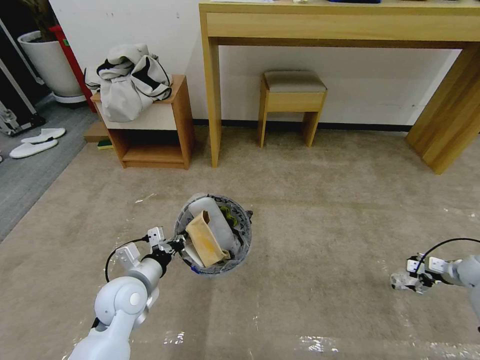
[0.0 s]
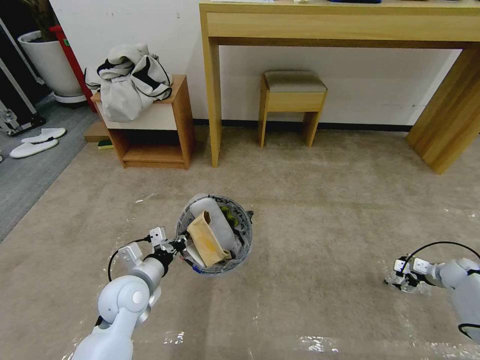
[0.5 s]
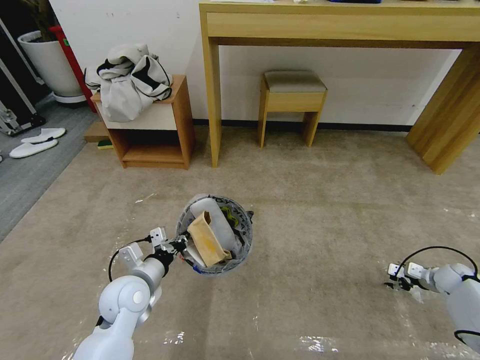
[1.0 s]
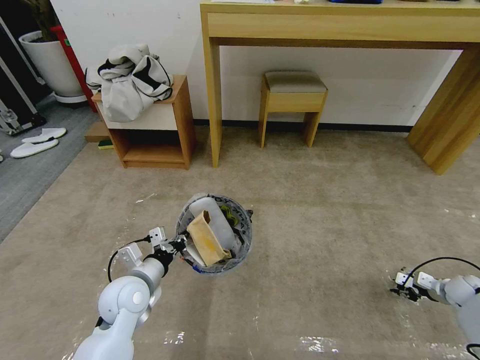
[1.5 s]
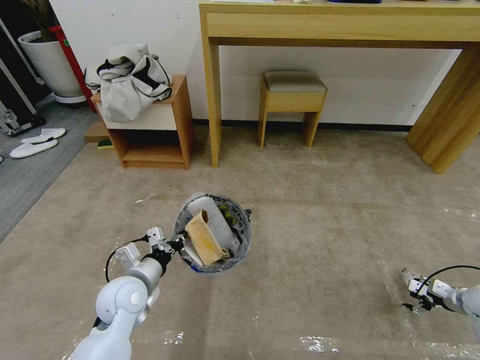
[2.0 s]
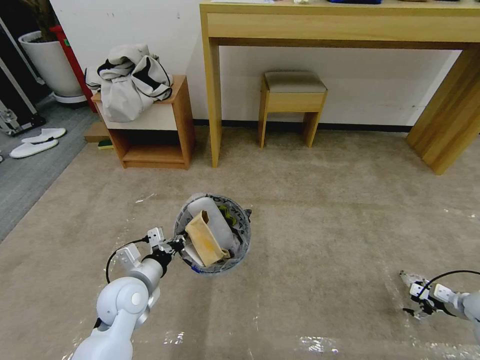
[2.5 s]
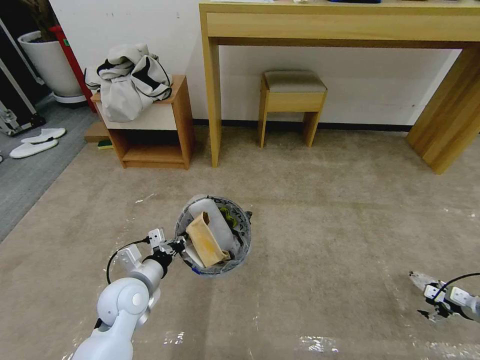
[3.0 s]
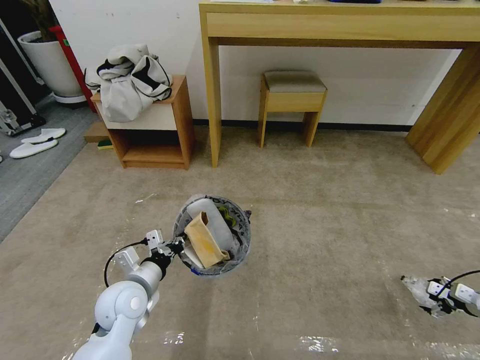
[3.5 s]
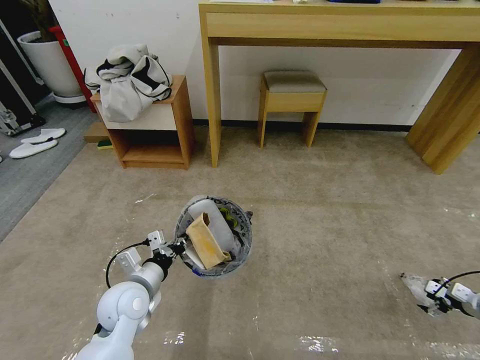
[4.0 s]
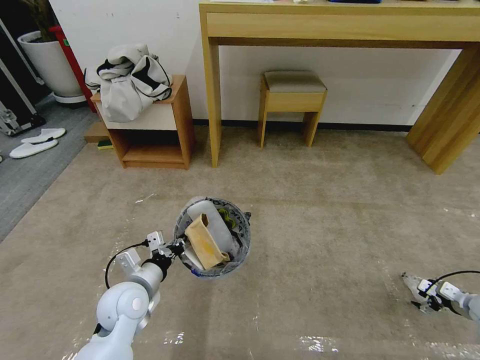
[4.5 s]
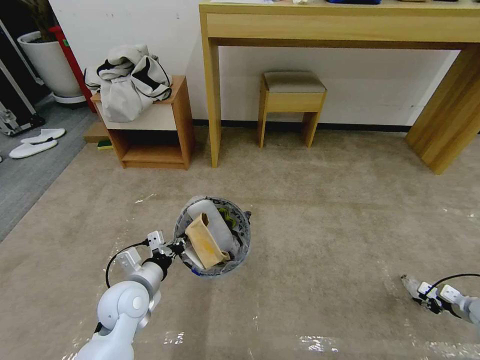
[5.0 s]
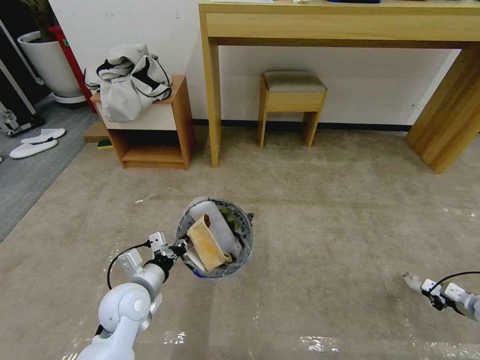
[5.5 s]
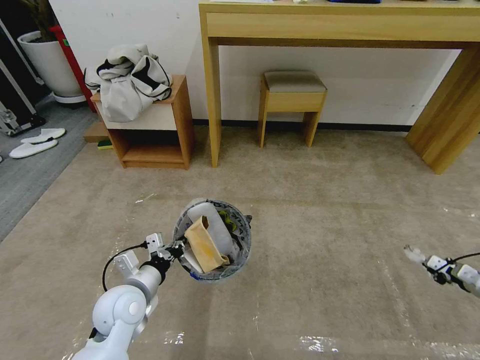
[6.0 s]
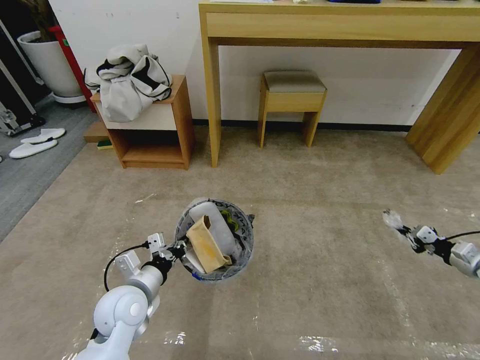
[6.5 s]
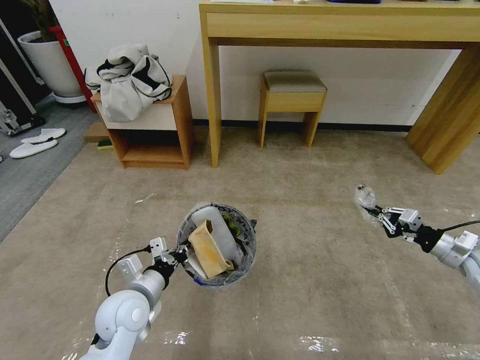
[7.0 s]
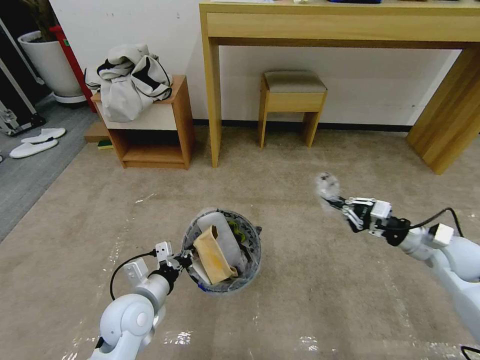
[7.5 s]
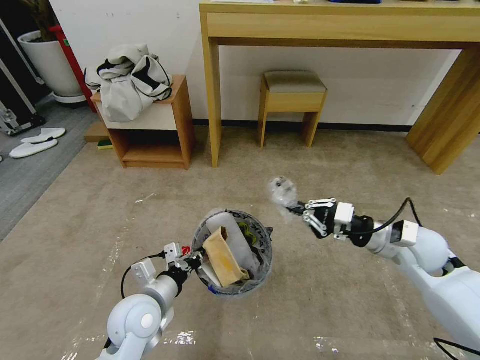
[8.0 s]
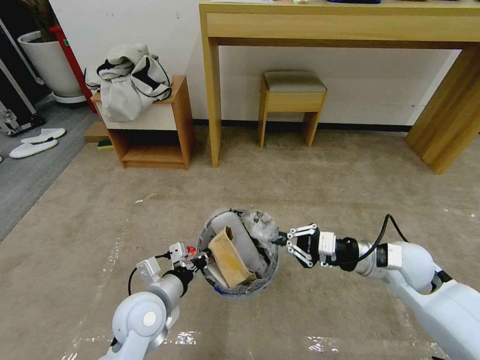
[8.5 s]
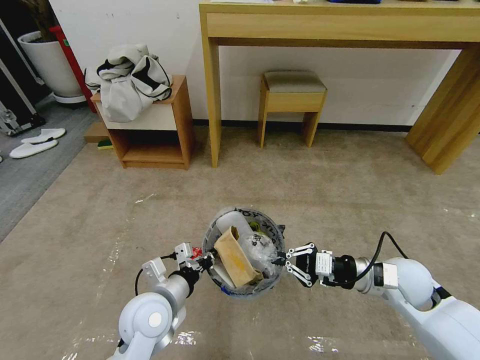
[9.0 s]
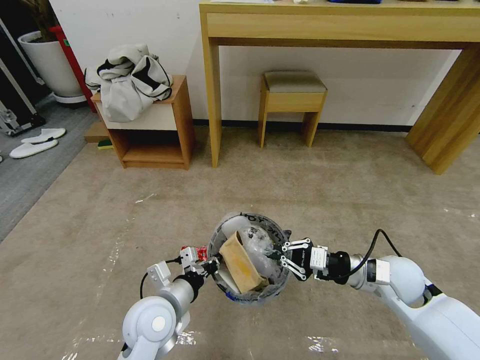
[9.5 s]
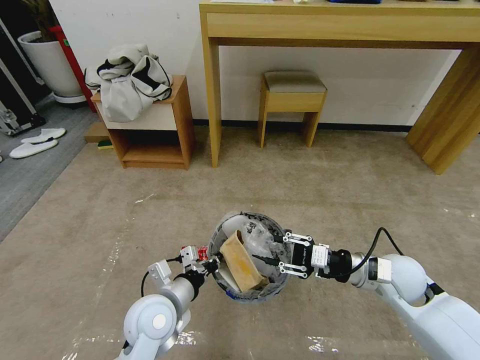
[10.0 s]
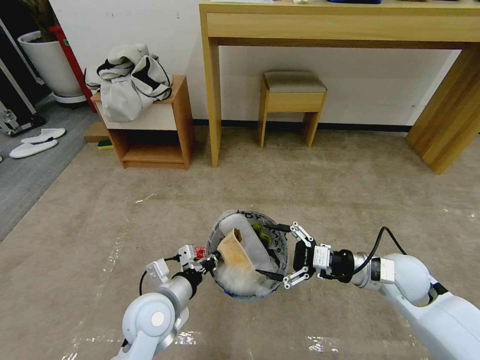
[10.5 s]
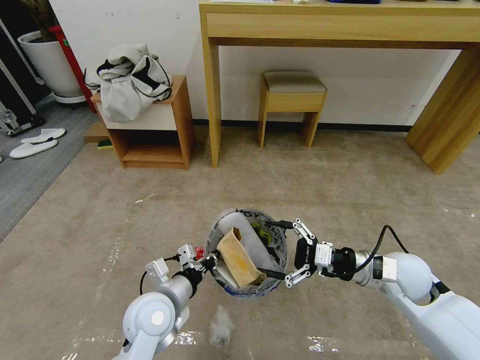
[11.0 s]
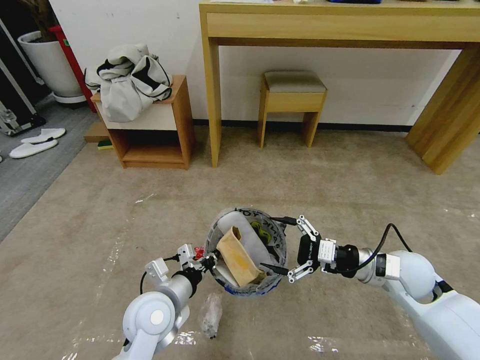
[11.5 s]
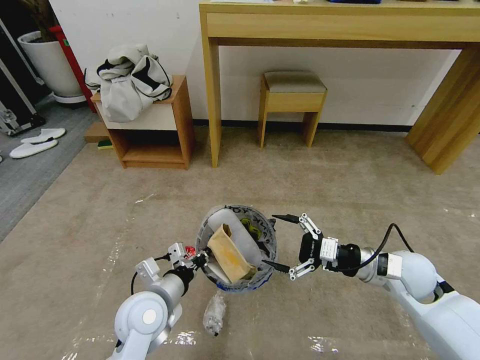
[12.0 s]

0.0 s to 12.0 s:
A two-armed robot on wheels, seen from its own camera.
Task of the whole recording: Pick up the trash bin and place the garbage on the floor into it.
0.0 to 2.0 s: The right gripper travels backward and downward by approximately 10 cm, and closes, then reopens.
2.0 to 4.0 s: There are only small adjustments of the grippers.
4.0 to 6.0 s: The right gripper ends up some 5 cm from where it was, and closes its fingers.
6.0 to 8.0 s: The right gripper moves to the left and upward, roughly 35 cm.
8.0 to 10.0 s: The right gripper changes place by about 5 cm, and opens up.
10.0 to 12.0 s: The right gripper opens.

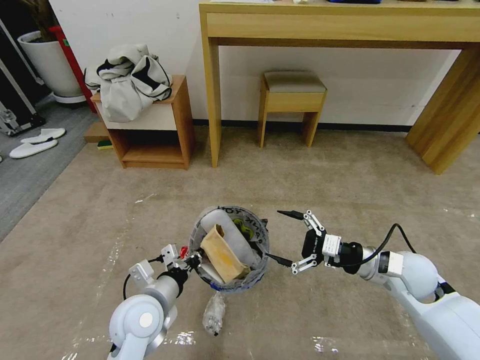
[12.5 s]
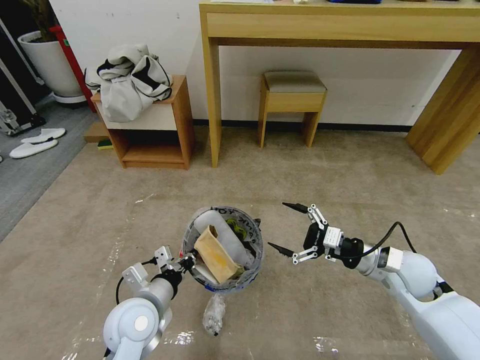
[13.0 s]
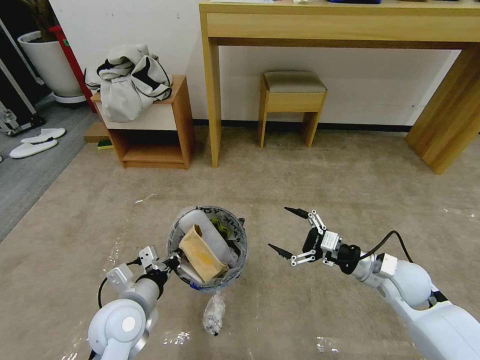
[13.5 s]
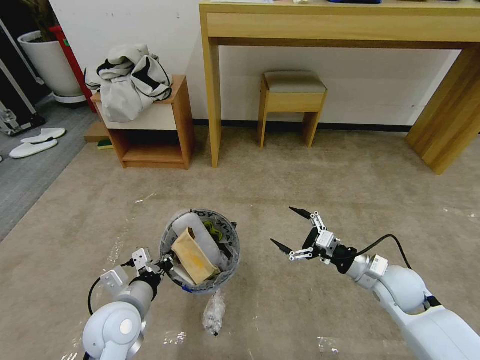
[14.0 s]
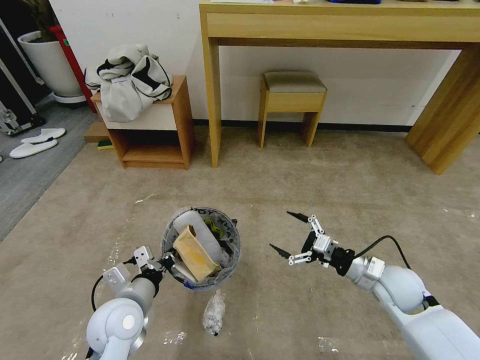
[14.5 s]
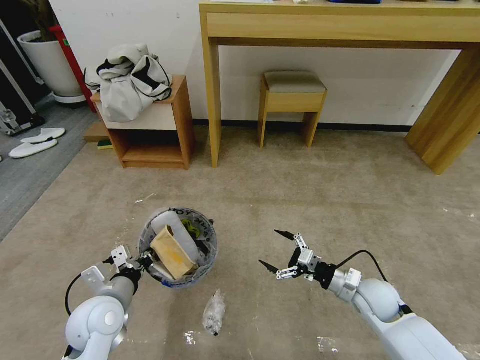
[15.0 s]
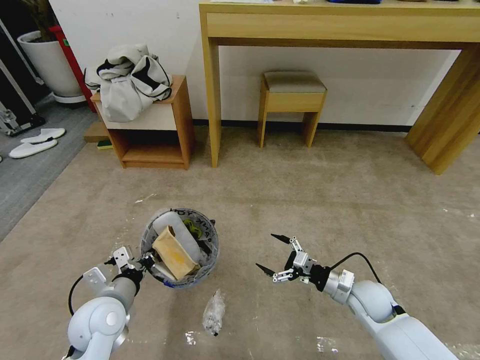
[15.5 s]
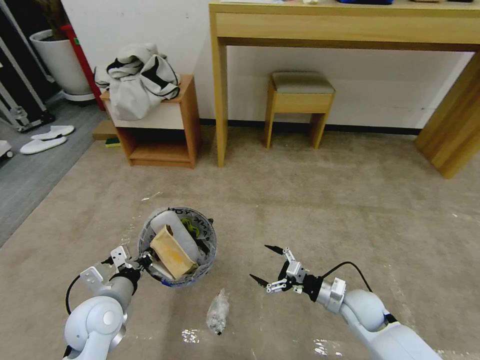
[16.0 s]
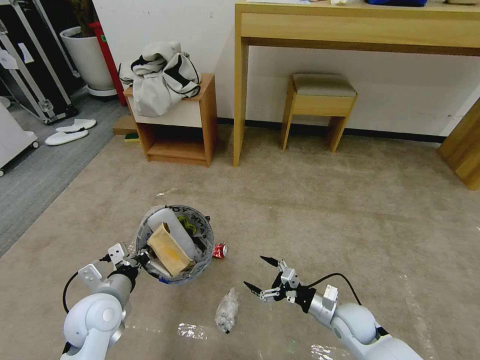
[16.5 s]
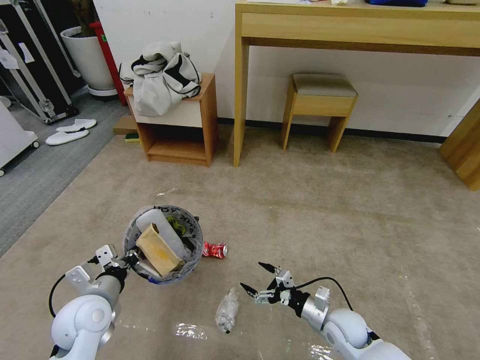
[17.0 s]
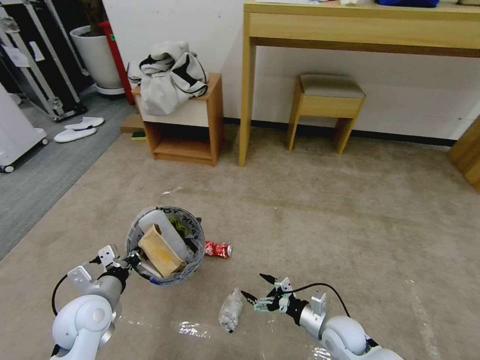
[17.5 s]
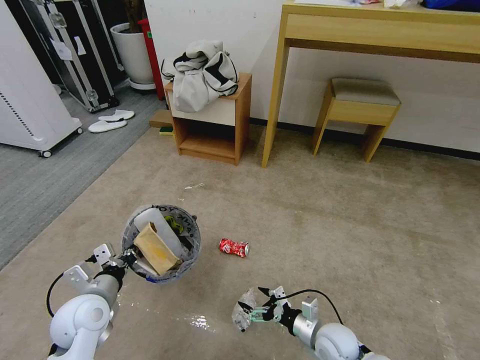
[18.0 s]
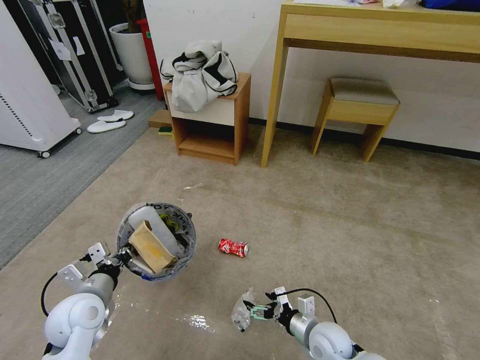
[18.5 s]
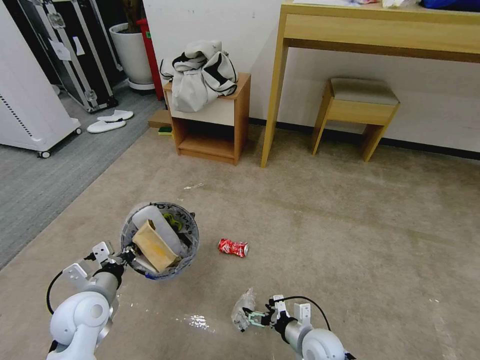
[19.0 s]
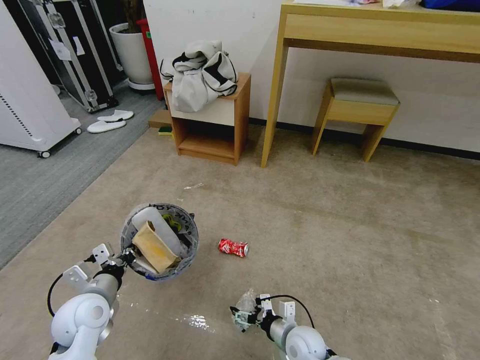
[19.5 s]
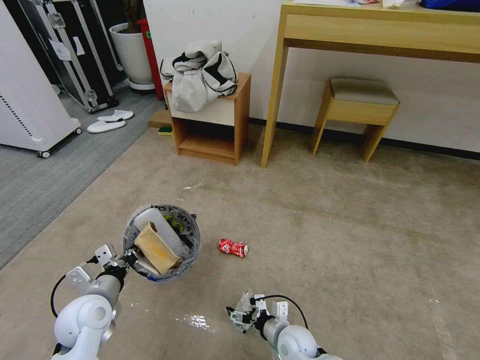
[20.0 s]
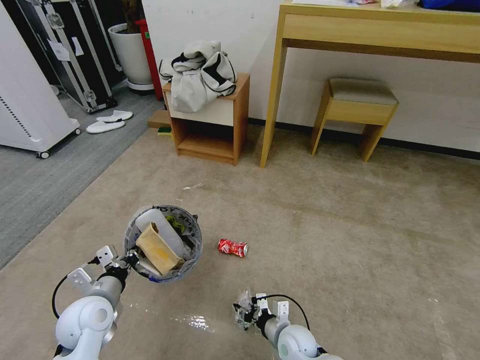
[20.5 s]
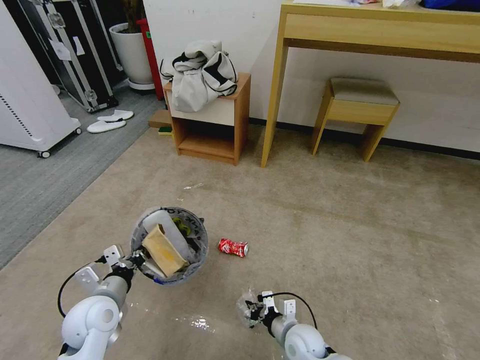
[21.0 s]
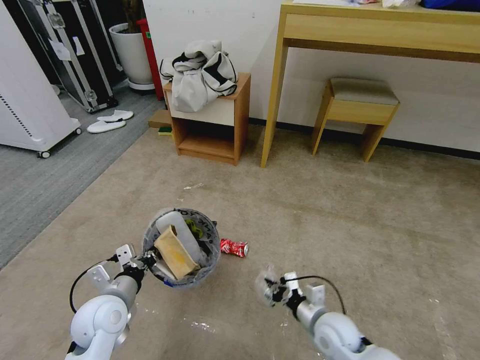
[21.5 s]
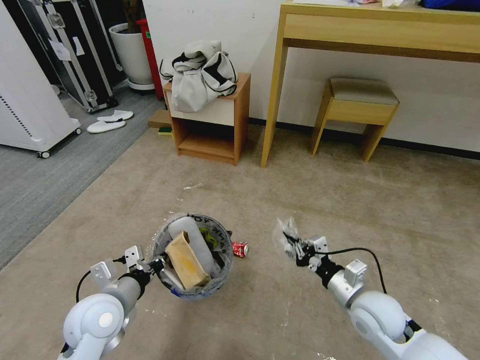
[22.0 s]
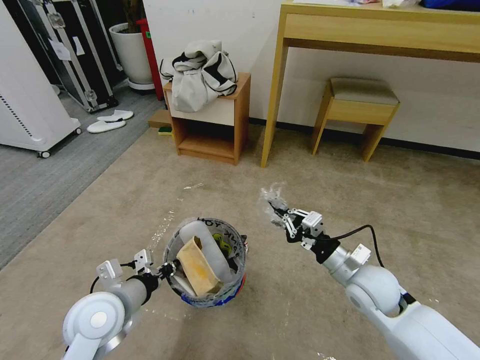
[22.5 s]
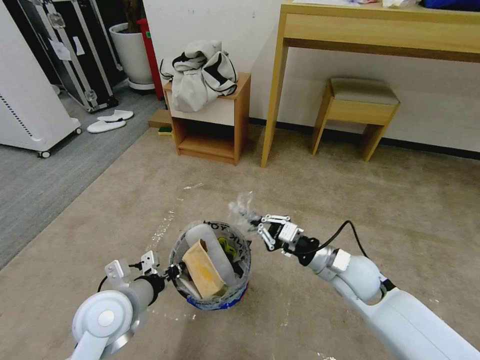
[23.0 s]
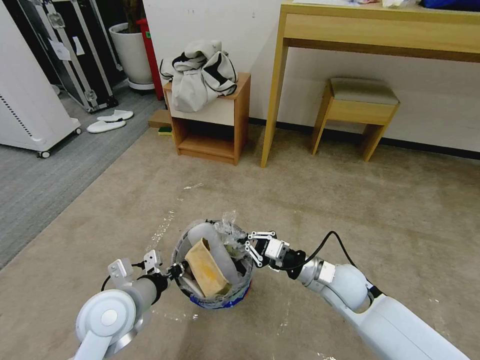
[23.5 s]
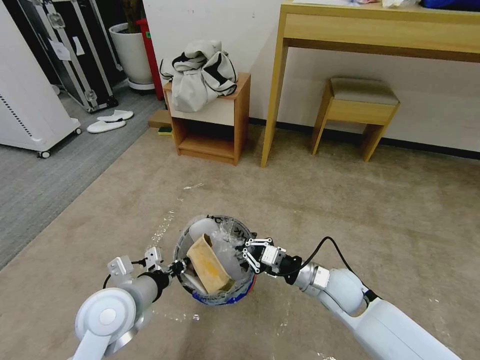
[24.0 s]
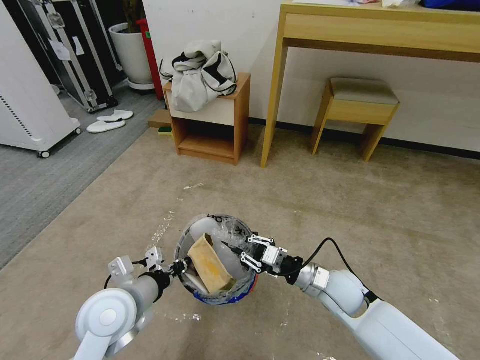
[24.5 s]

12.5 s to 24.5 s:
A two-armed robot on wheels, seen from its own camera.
Task of the whole recording: Pick up the trash bin and place the garbage on the floor into it.
12.5 to 14.5 s: The right gripper moves downward, approximately 5 cm.
14.5 to 16.5 s: The right gripper shifts approximately 15 cm downward and to the left; the left gripper goes some 5 cm to the left.
16.5 to 18.5 s: The right gripper travels to the left by roughly 5 cm.
18.5 to 20.5 s: The right gripper heads to the left, covering roughly 5 cm, and closes up.
20.5 to 22.5 s: The right gripper shifts some 25 cm upward and to the right, and closes; the left gripper shifts about 10 cm upward and to the right.
22.5 to 24.5 s: The right gripper moves downward, approximately 5 cm.

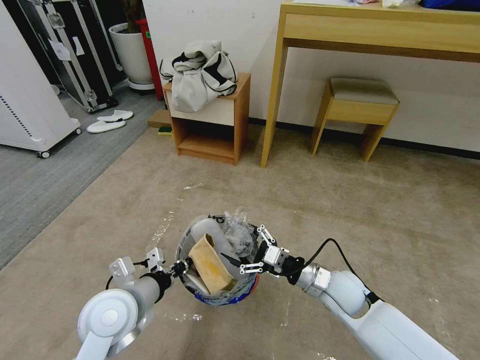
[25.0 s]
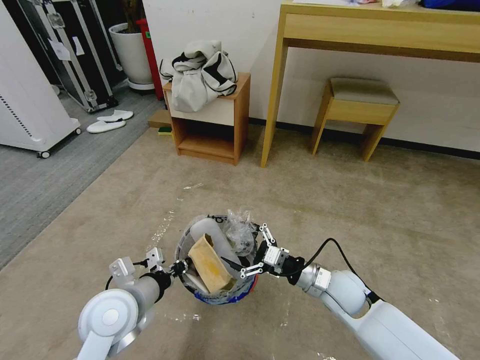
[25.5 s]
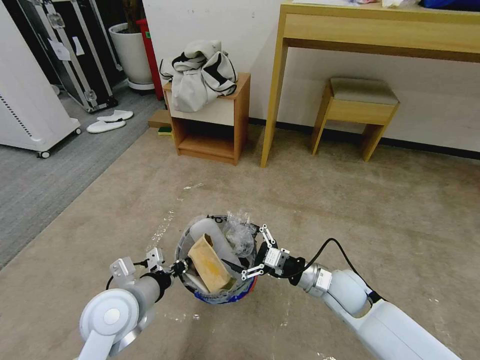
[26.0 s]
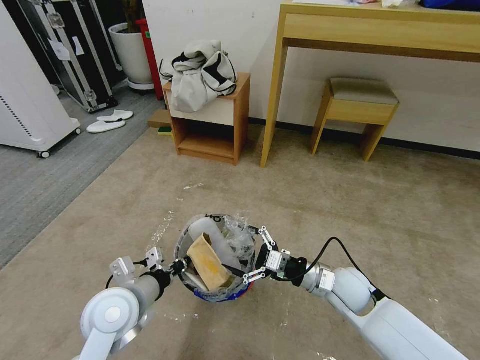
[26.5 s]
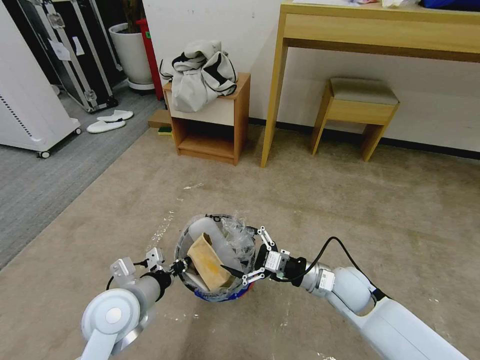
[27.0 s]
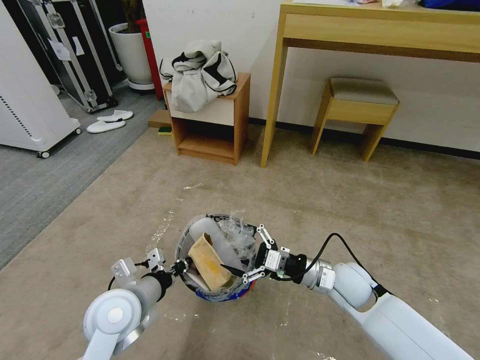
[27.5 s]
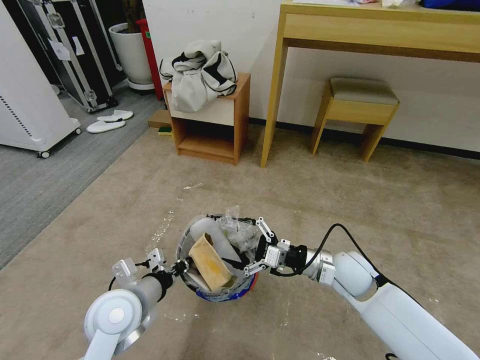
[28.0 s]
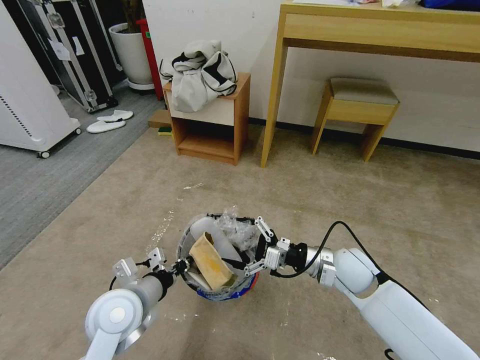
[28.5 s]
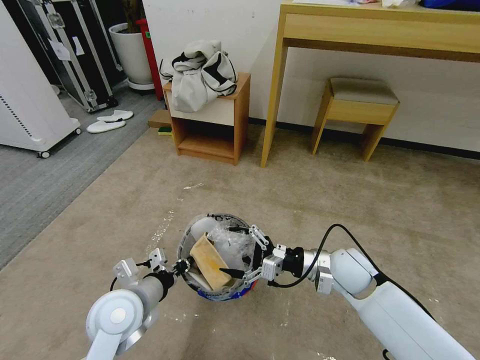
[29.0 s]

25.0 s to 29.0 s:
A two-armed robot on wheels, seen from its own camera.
Task of the whole recording: Pick up the trash bin and place the garbage on the floor into it.
25.0 to 27.0 s: The grippers move only a little.
